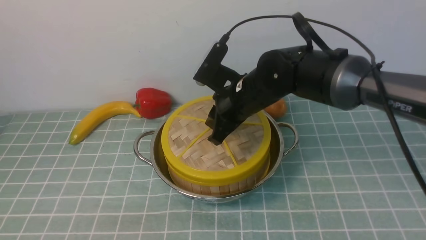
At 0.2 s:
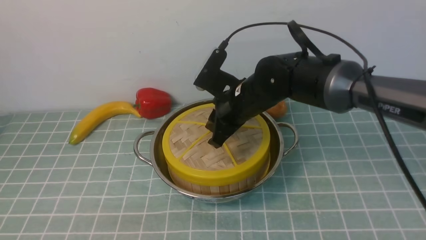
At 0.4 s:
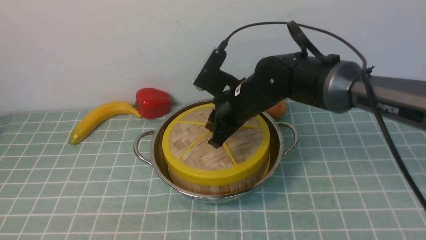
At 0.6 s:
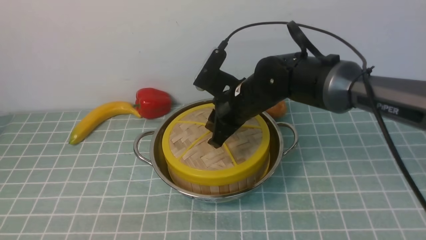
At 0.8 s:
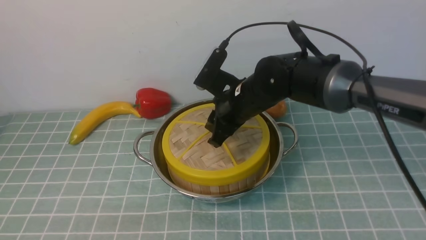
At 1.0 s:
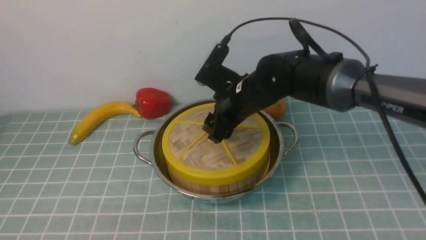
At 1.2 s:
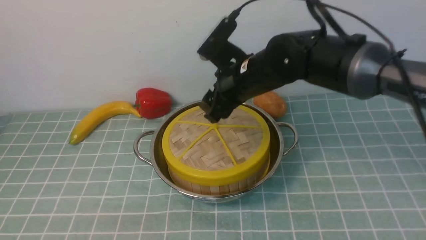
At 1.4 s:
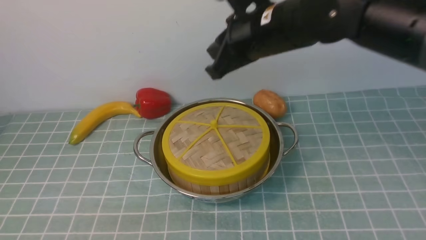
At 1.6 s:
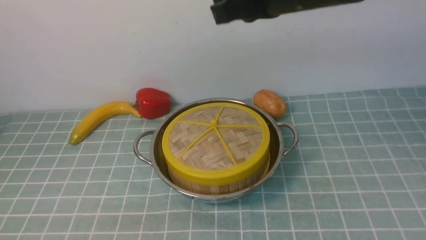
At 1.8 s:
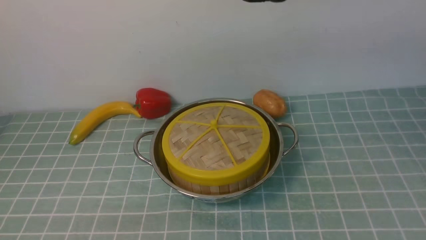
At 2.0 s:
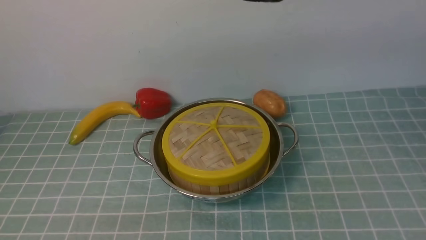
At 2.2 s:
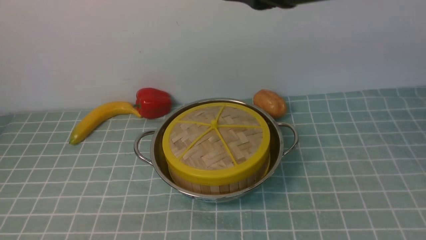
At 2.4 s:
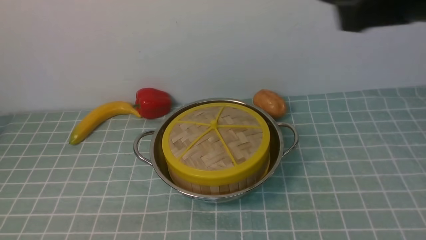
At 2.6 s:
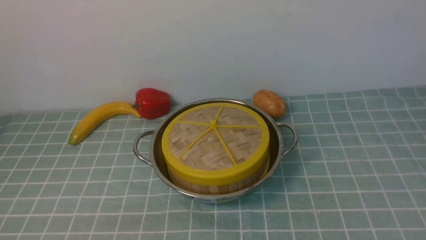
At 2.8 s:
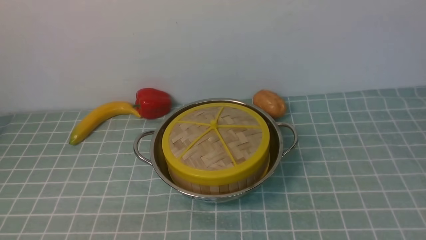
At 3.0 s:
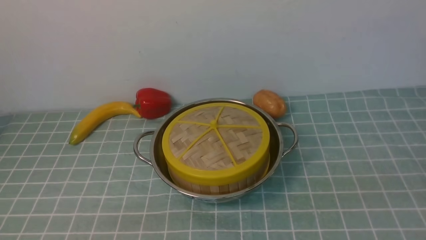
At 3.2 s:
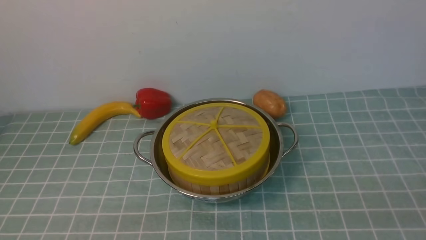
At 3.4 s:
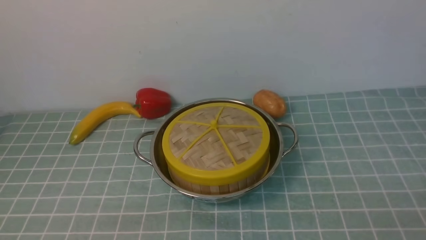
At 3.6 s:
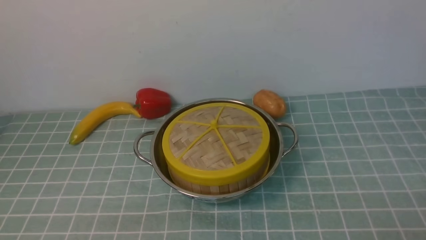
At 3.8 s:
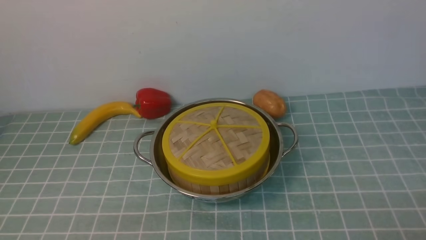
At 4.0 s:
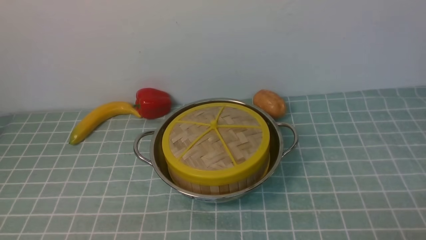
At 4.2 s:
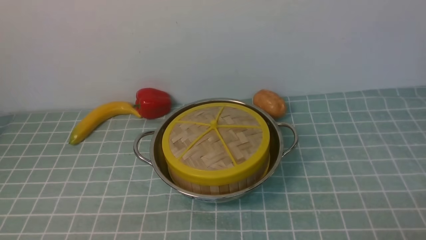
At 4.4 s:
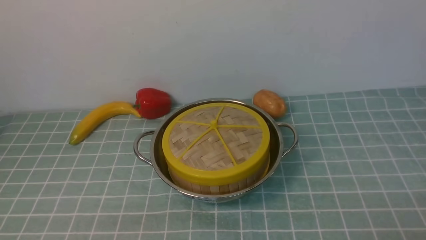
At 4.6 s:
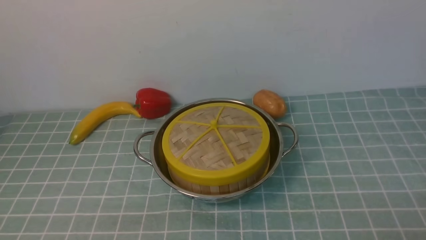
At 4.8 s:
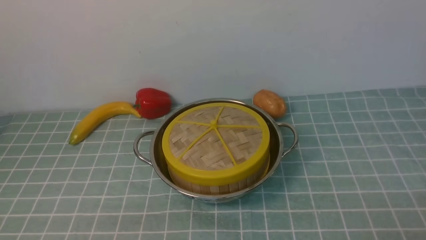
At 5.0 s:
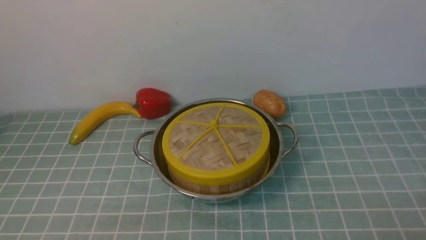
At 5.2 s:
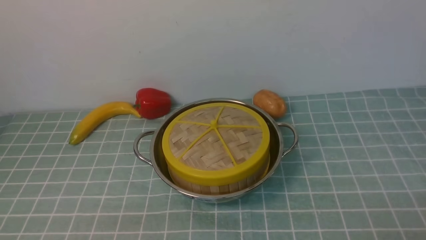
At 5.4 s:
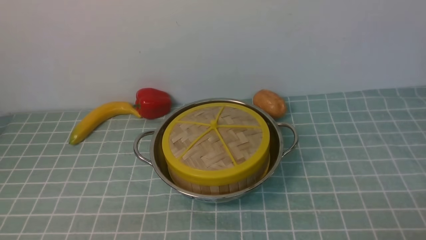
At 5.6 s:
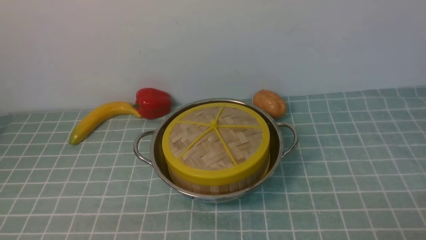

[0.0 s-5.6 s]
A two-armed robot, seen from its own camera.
Task of the whole recording: place the steamer in the pot on the blue tablecloth, and put the lid on the steamer.
0.0 to 1.4 s: The right gripper goes roughly 15 cm upward, and opens, then closes once more.
1.4 to 2.8 s: The right gripper shifts some 35 cm backward and to the right.
4.2 to 5.6 s: Both grippers stay put.

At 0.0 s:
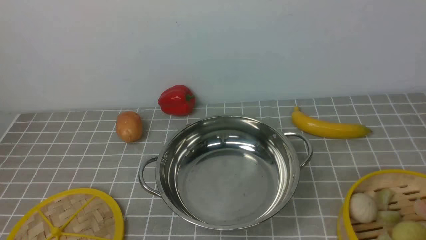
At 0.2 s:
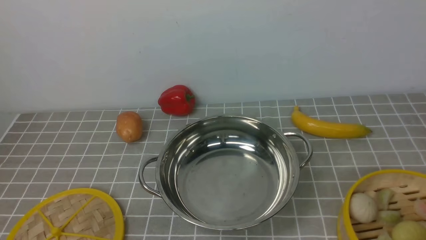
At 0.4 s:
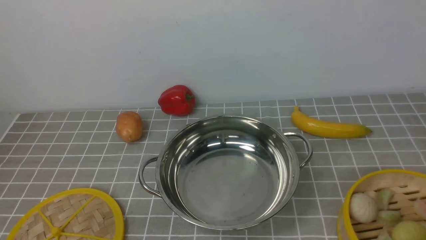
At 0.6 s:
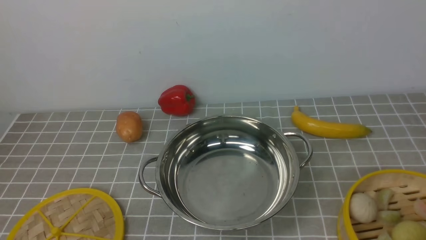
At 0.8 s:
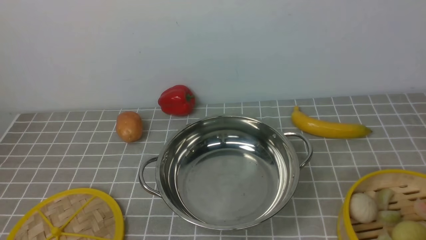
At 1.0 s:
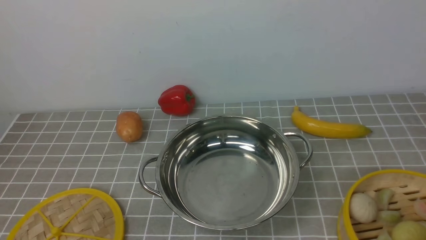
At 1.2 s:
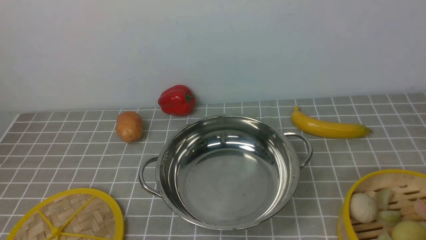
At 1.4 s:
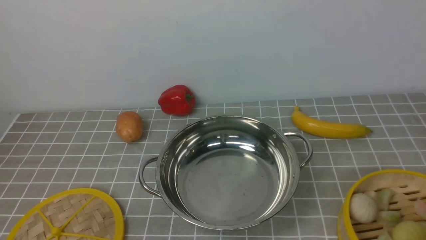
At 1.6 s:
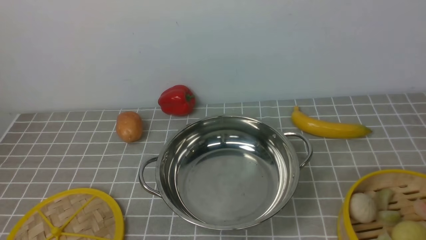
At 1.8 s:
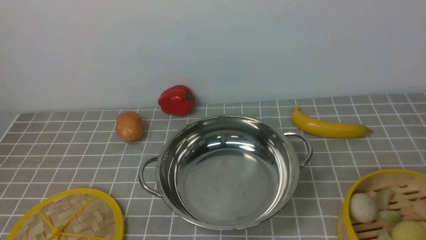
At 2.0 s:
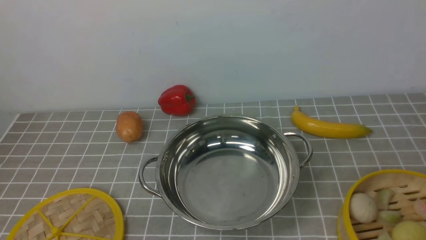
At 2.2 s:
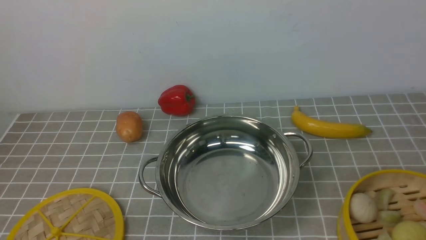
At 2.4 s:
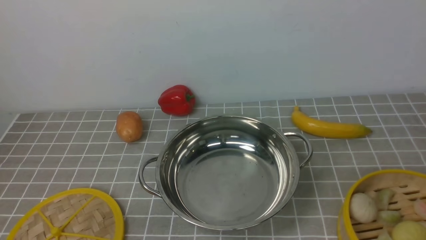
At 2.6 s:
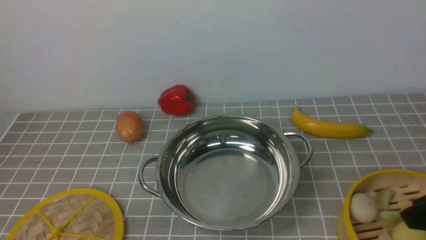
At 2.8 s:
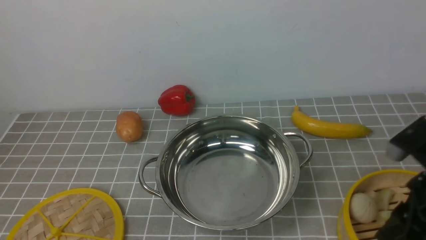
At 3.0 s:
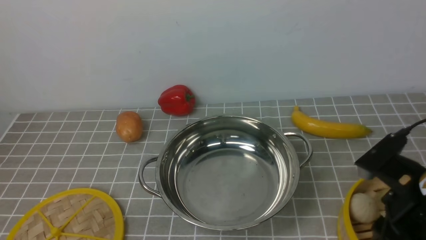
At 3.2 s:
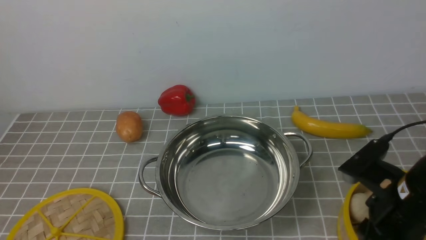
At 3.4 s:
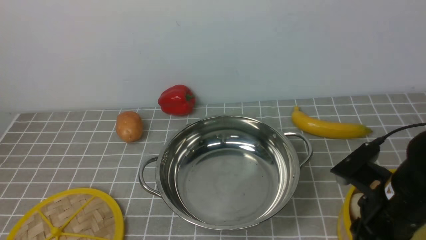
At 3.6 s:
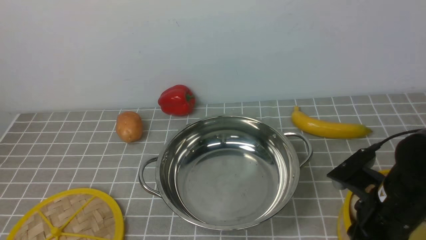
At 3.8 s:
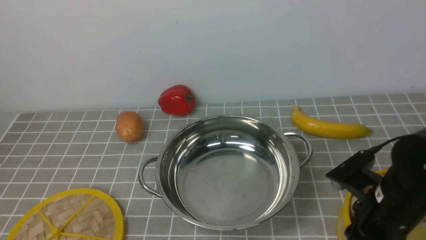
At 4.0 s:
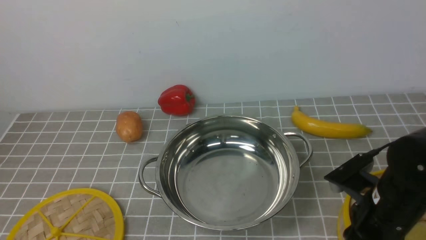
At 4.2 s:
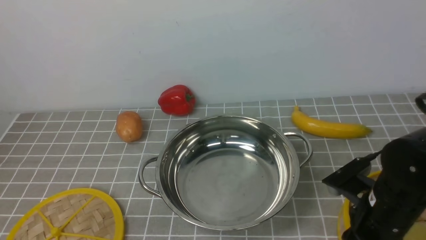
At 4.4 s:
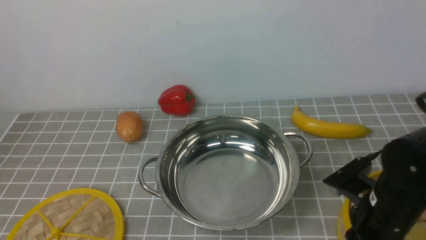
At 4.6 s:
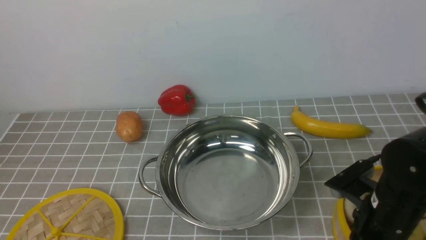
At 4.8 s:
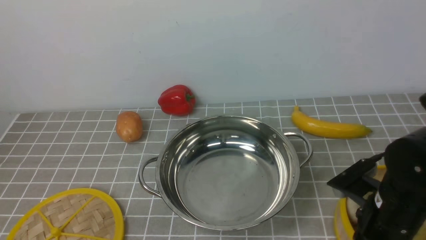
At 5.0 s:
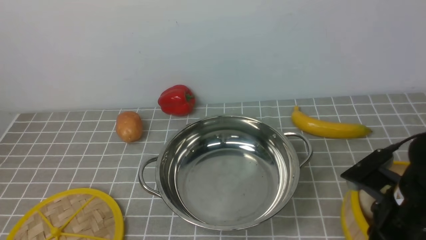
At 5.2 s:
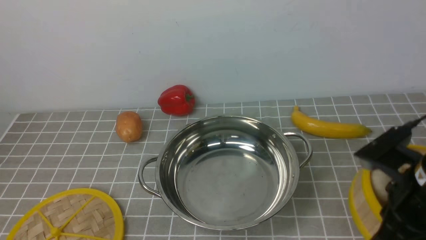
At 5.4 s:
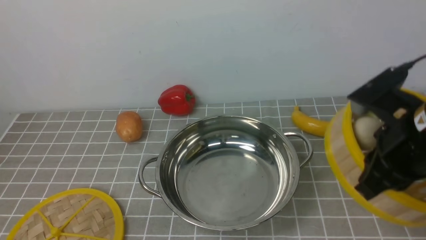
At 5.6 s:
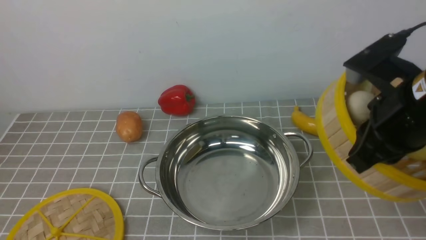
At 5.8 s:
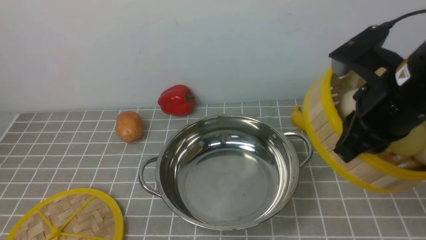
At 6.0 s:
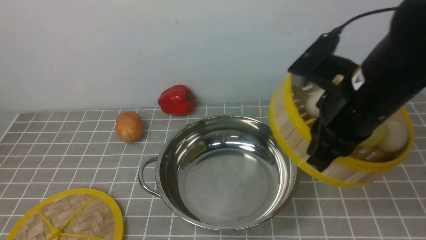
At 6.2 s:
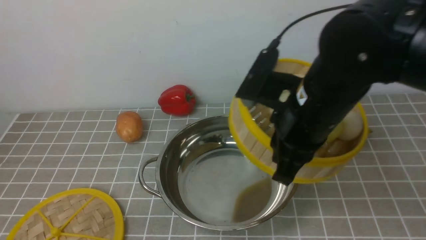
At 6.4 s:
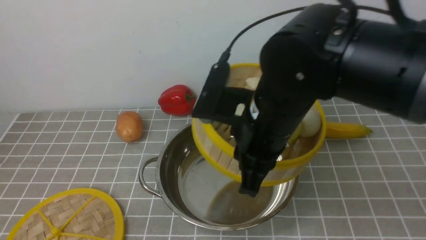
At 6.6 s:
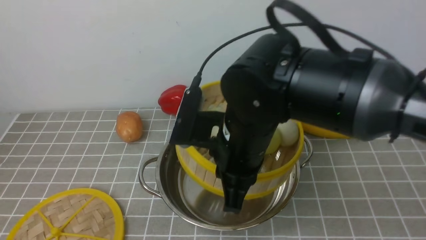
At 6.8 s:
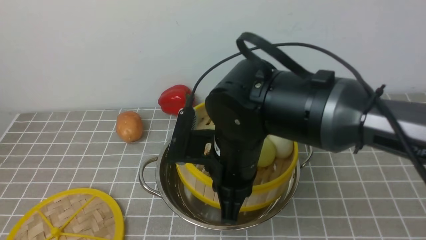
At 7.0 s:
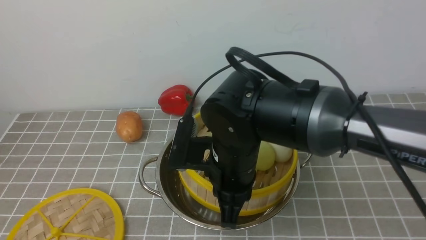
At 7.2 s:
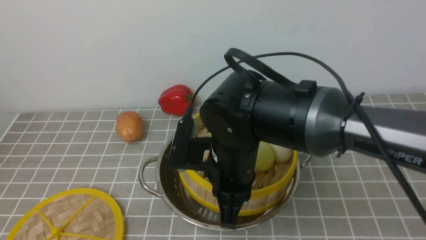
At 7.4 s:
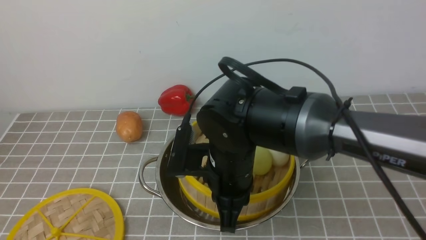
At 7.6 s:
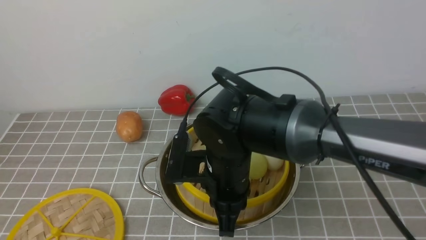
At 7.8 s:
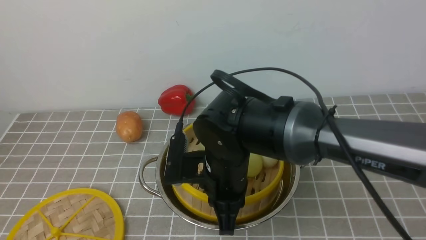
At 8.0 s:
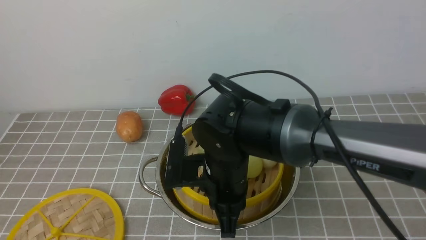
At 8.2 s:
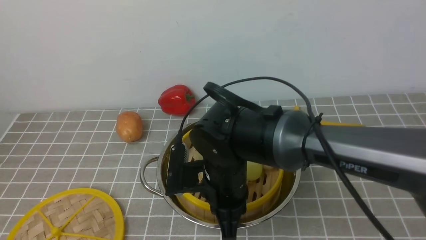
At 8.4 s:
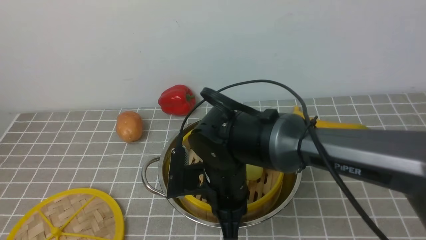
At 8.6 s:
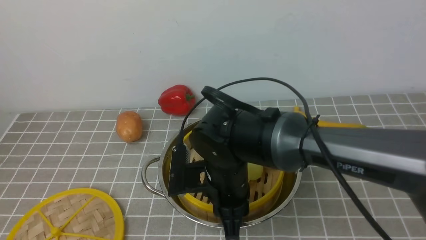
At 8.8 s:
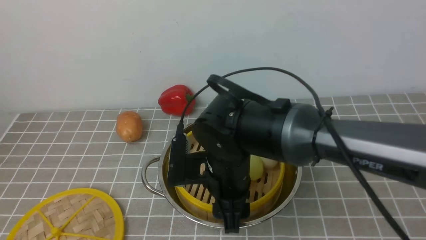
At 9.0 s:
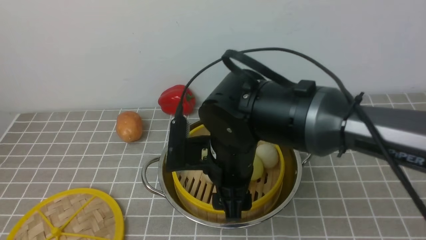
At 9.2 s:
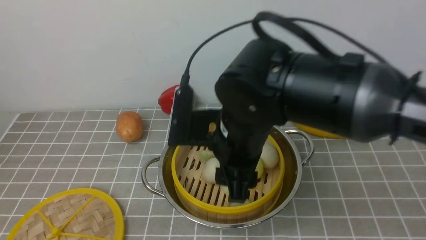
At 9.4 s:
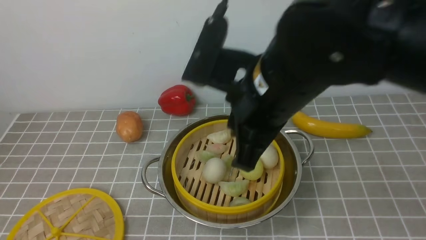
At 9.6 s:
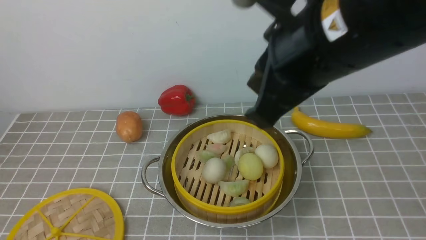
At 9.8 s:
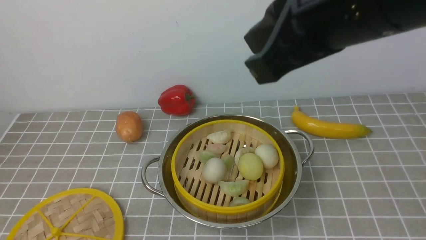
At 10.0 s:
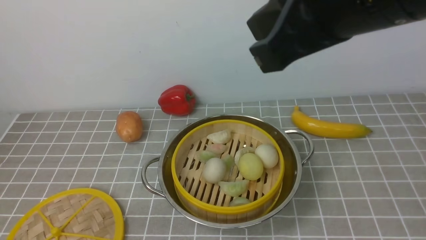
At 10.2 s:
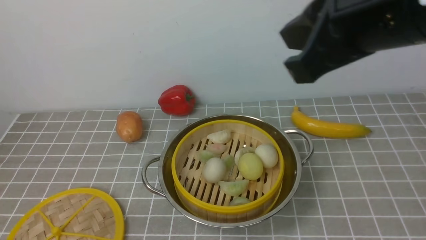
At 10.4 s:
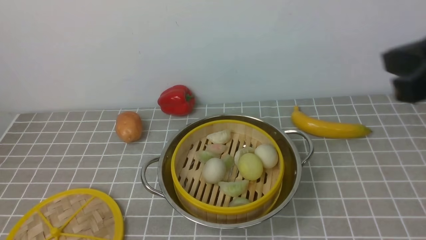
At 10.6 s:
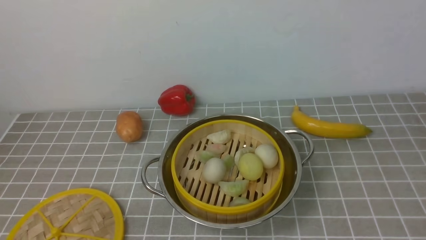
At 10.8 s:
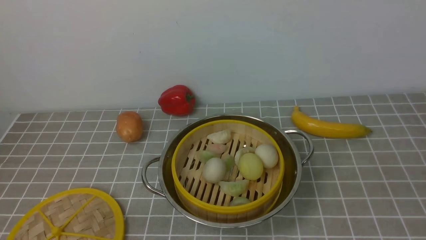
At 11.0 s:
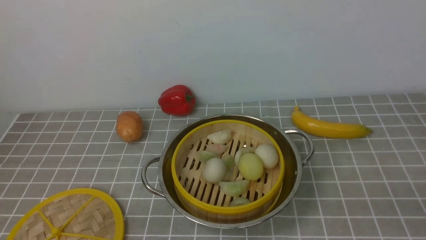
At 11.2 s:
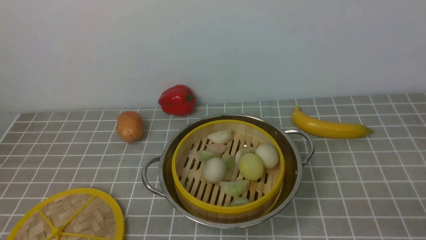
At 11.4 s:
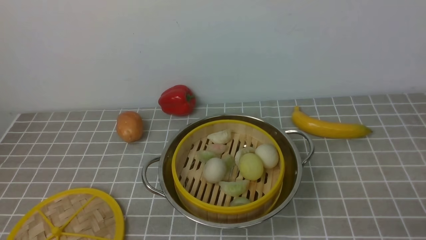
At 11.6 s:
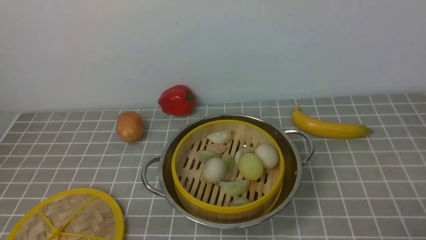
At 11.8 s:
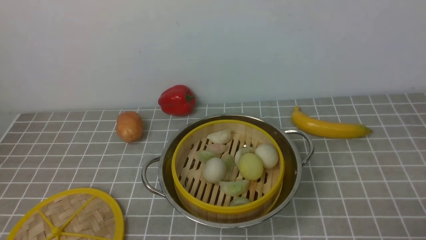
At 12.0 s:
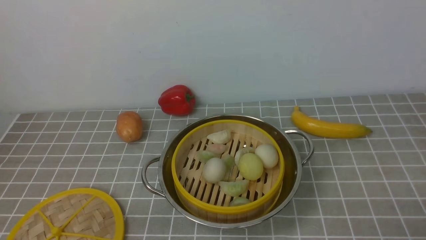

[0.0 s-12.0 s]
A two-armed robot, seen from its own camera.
Task of the whole recording: place the steamer in the pot on the grey tablecloth, and put the lid on the steamer.
Step, 0.0 to 4.8 s: use the right arm to lift the steamer closest to it.
Step, 5.0 to 8.8 s: use the right arm to put the steamer into the iron steamer pot in the middle.
1.6 to 3.0 s: The right gripper is displaced forward and to the left by approximately 15 cm.
3.0 to 4.4 s: The right gripper goes about 5 cm downward.
4.4 to 6.0 s: The right gripper heads upward, covering roughly 15 cm.
6.0 to 7.6 s: The right gripper goes about 20 cm to the left and downward.
7.6 to 9.0 s: The right gripper opens.
9.0 to 10.4 s: The right gripper heads to the right and upward, covering roughly 25 cm, and closes up.
10.4 to 12.0 s: The right gripper travels downward and backward by approximately 25 cm.
